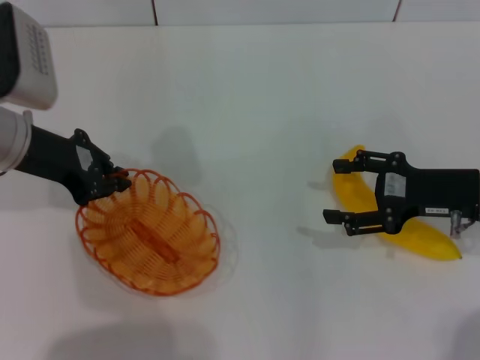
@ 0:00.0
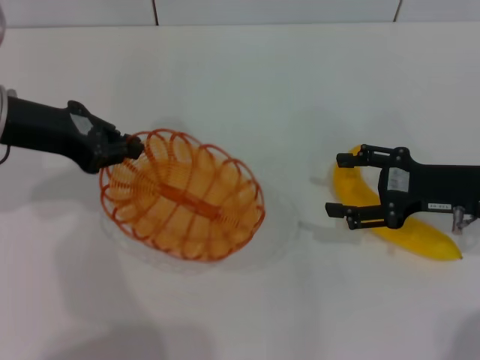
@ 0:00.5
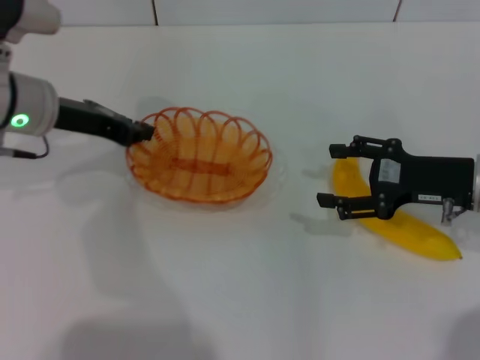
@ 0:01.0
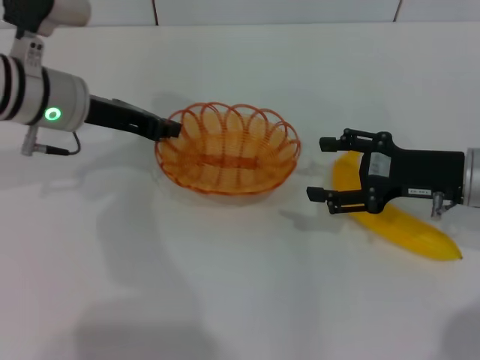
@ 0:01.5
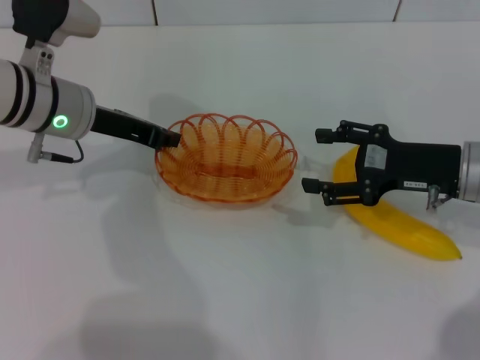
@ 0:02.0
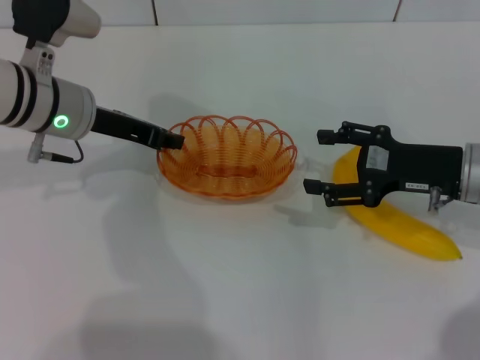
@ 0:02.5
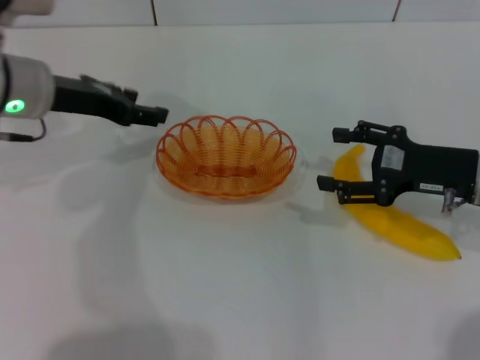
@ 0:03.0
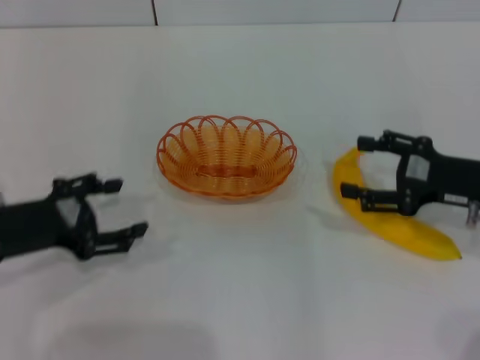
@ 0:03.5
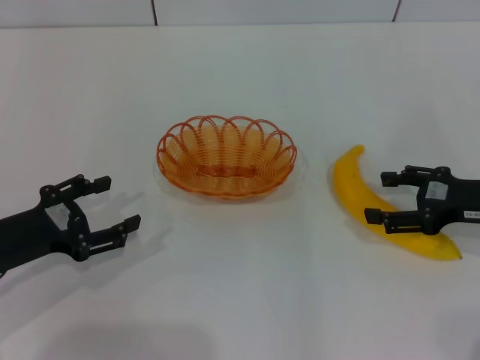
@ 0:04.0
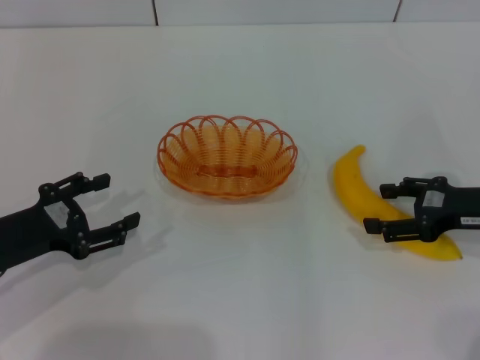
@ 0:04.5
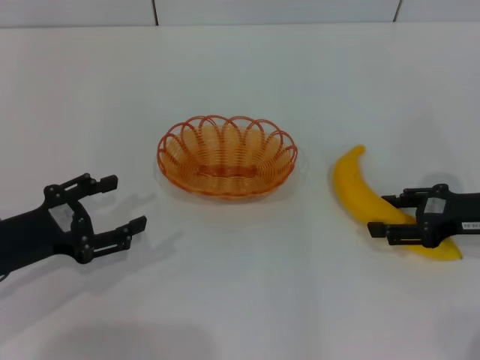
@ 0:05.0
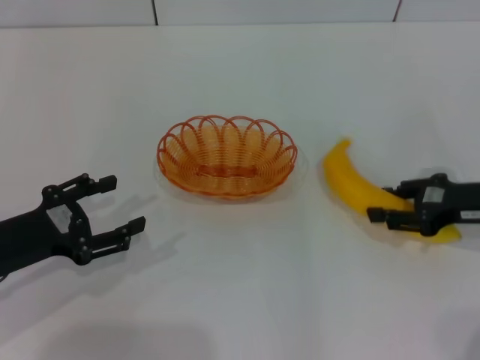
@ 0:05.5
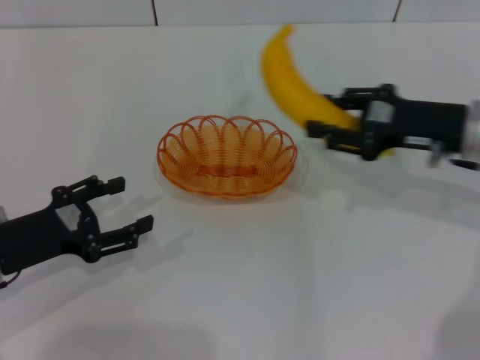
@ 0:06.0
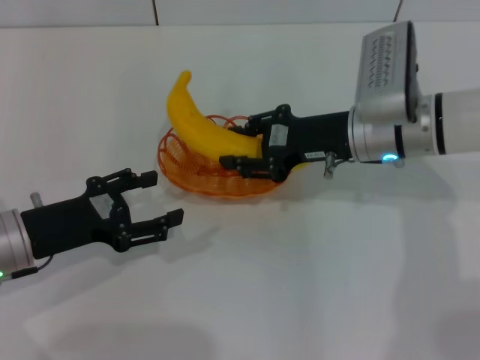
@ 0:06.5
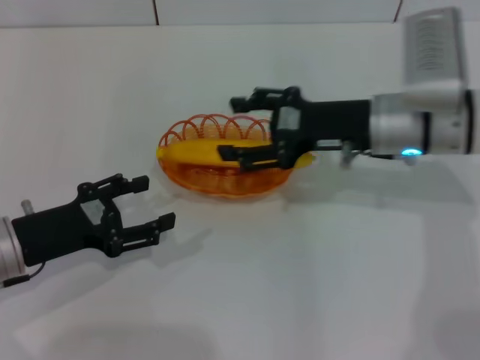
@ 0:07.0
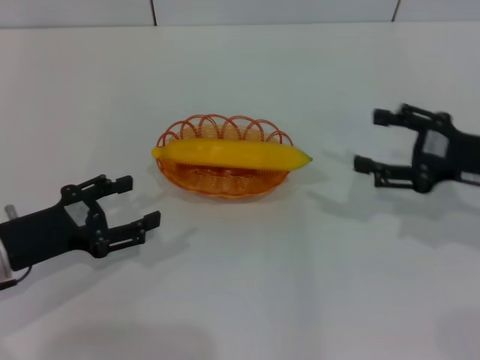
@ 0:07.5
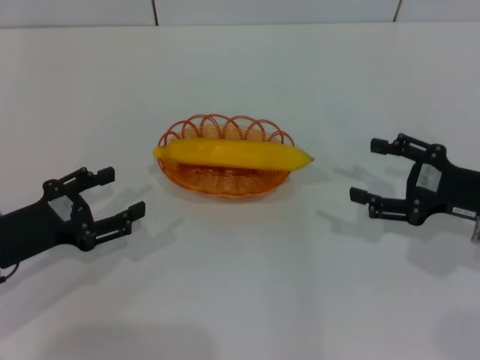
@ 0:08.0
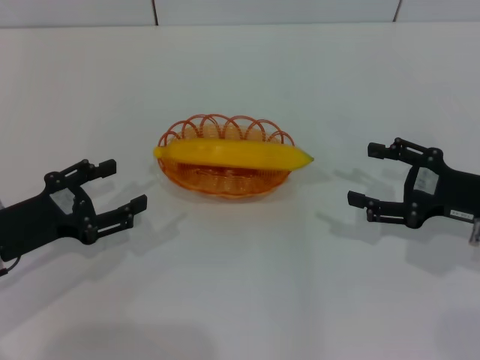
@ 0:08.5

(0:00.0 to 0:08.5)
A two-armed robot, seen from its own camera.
Step, 0:00.5 - 0:02.5: Place the basket in the center of view with the left gripper.
Step, 0:03.0 - 0:05.5: Pick up the banana with the right gripper.
Step, 0:06.0 - 0:07.0: Place the banana into the basket with the right gripper.
0:00.0 - 0:02.0: The left gripper shifts by approximately 5 cm.
0:02.0 - 0:04.0: The left gripper travels backward, to the left and downward by approximately 20 cm, and opens. The right gripper goes some 5 cm to the right.
0:04.0 - 0:06.5: The right gripper moves to the left and forward, about 20 cm, and closes up.
0:06.5 - 0:08.5: The right gripper travels to the right and backward by some 15 cm, and opens its fingers.

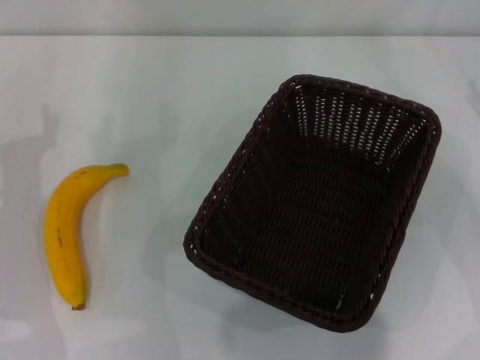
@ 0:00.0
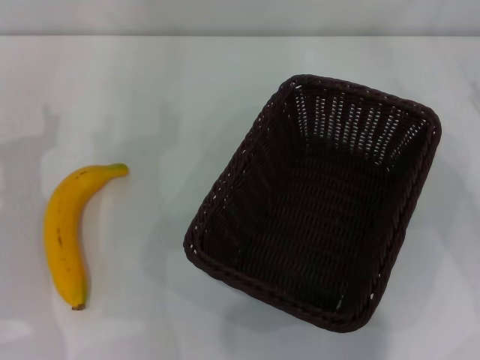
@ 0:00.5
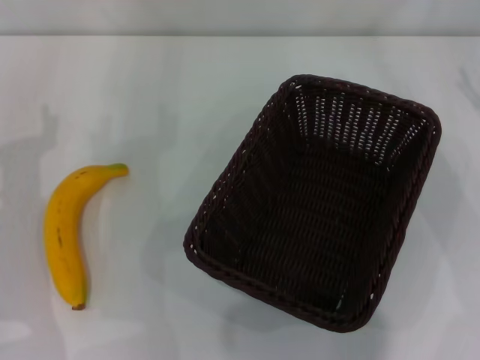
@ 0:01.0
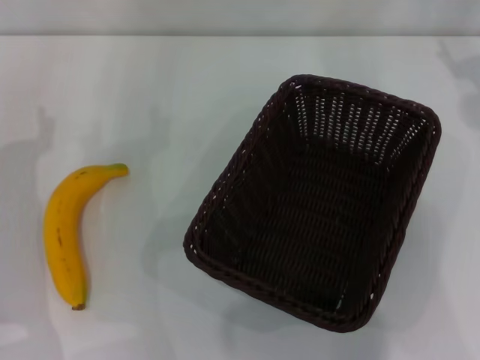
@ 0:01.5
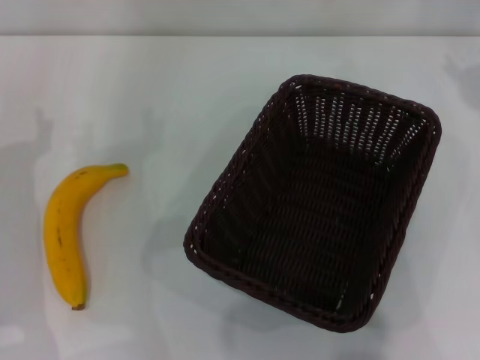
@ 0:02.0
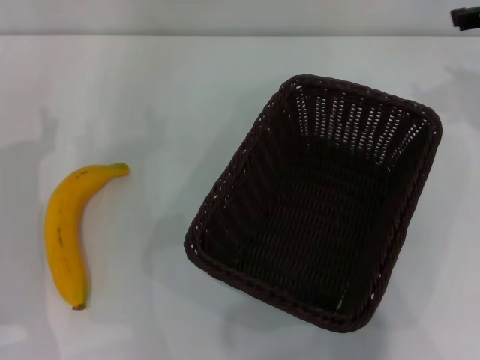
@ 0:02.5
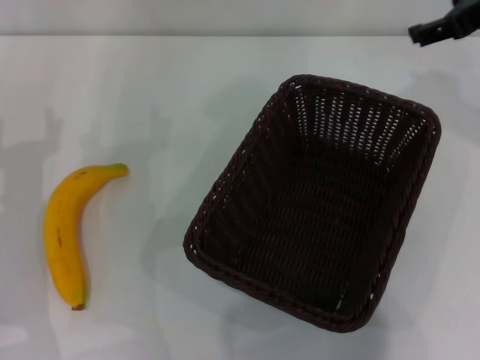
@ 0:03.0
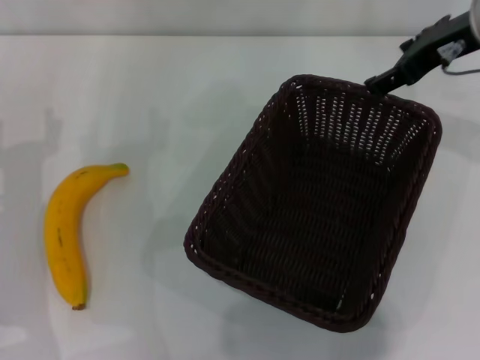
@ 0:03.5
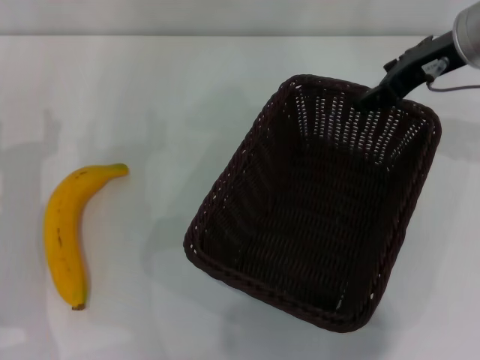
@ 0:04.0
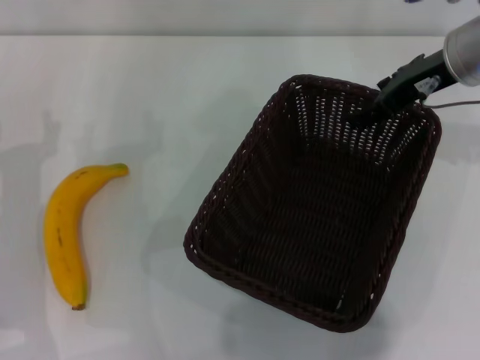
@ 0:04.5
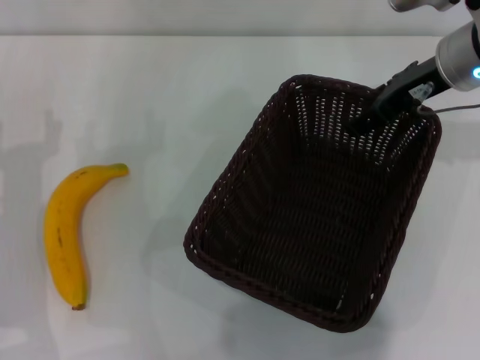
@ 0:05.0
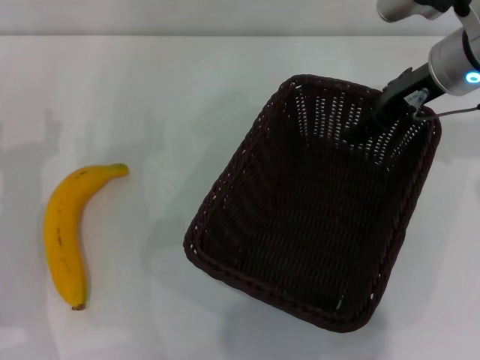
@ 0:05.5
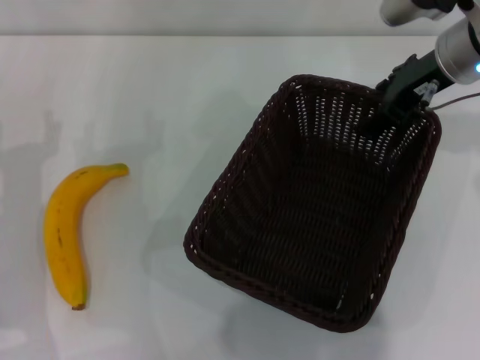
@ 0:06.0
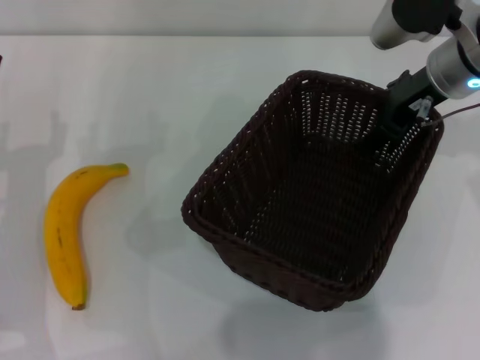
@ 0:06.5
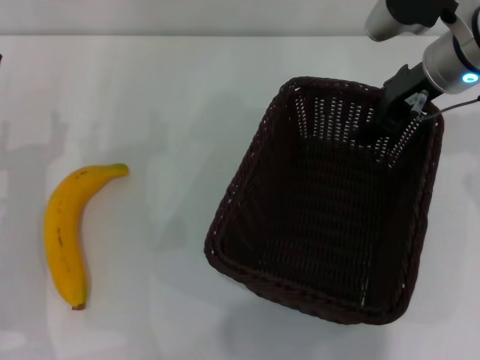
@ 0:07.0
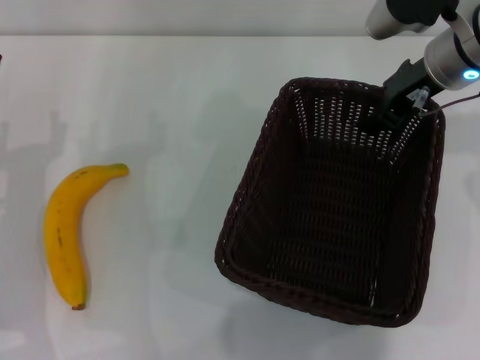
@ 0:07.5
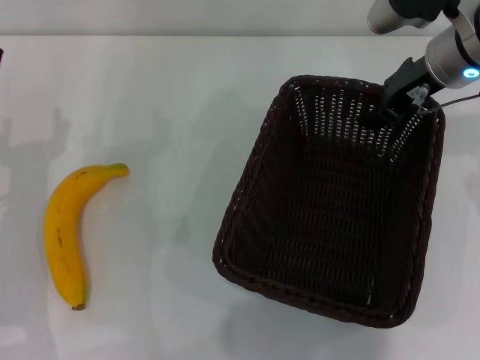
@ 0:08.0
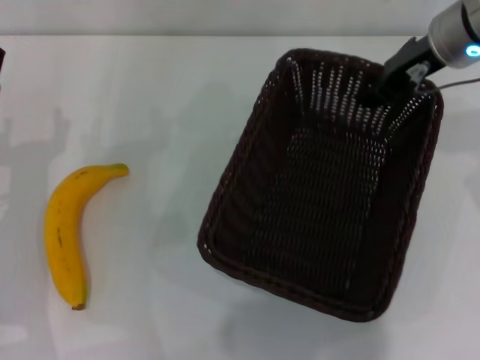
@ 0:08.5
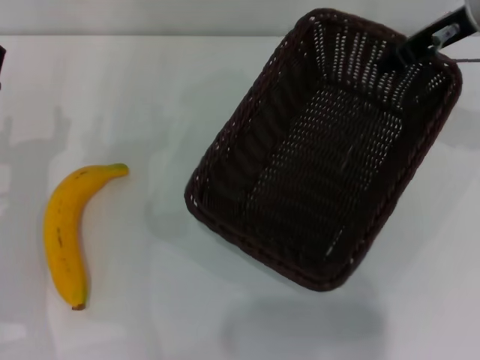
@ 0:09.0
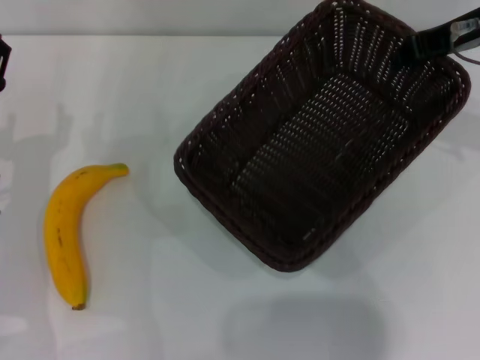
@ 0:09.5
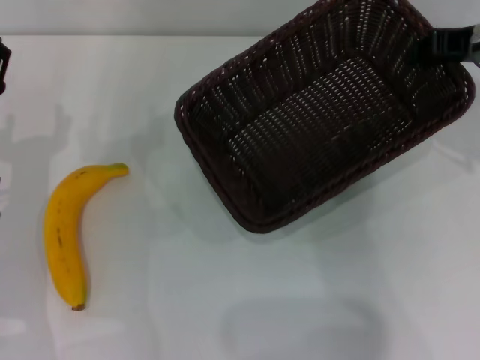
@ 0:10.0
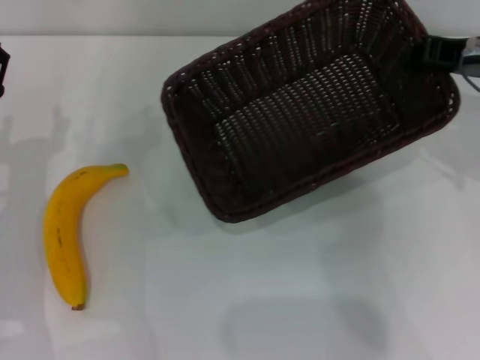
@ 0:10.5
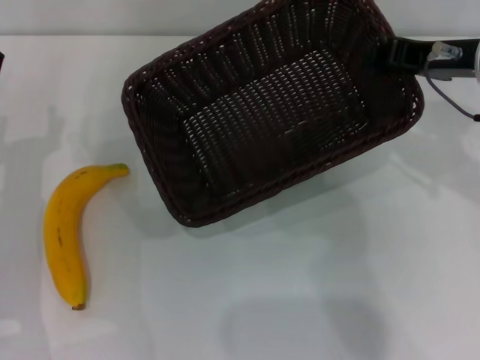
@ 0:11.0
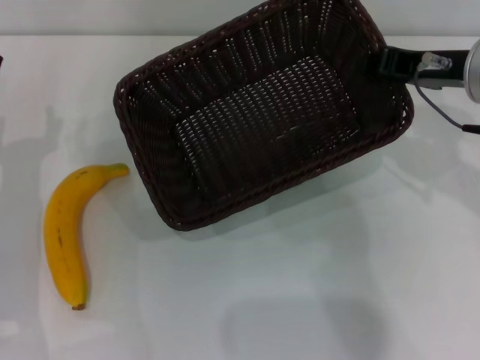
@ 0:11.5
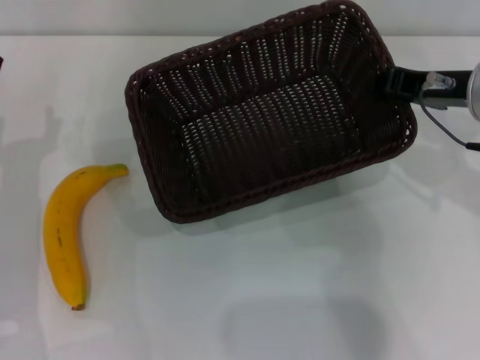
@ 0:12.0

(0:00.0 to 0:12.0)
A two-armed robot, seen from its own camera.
Step, 0:00.0 - 0:08.0: Pick up the dark basket with the right gripper.
0:02.0 - 0:04.0: The right gripper shifts about 10 cm to the left.
0:04.0 - 0:06.0: The grippers make only small movements.
0:06.0 - 0:08.0: The right gripper closes up.
0:08.0 - 0:10.0: The right gripper shifts roughly 5 cm to the right.
0:10.0 - 0:12.0: The right gripper ends up roughly 5 cm from where it was.

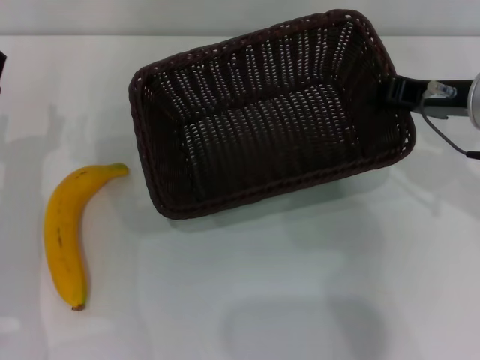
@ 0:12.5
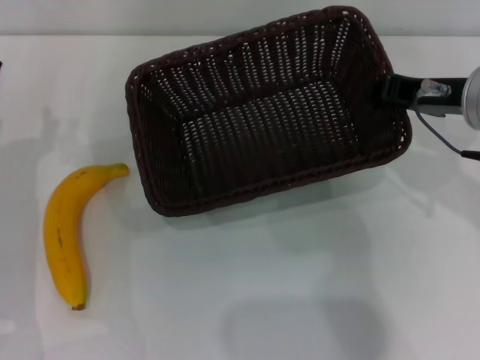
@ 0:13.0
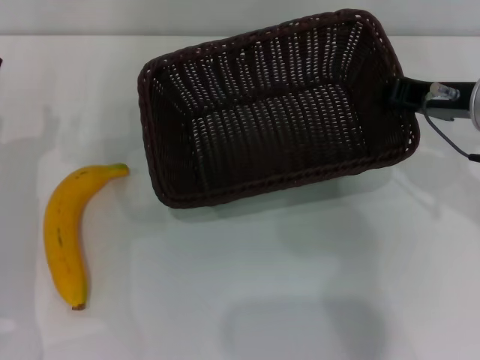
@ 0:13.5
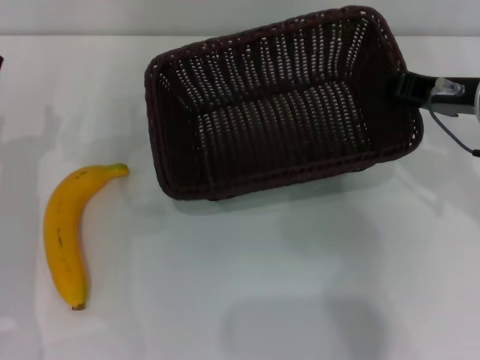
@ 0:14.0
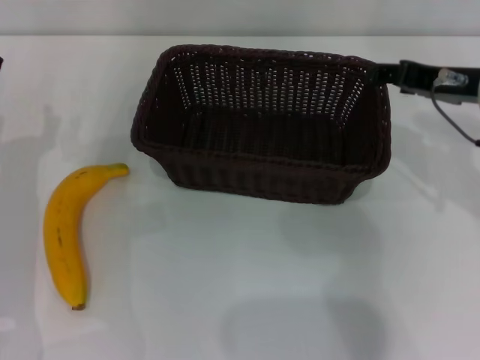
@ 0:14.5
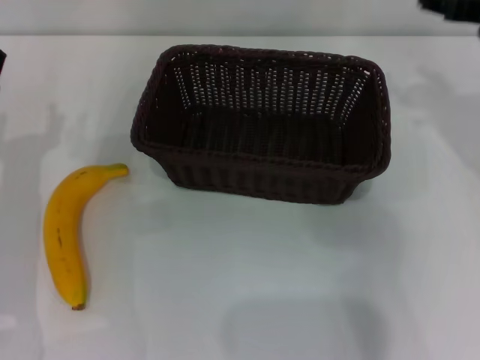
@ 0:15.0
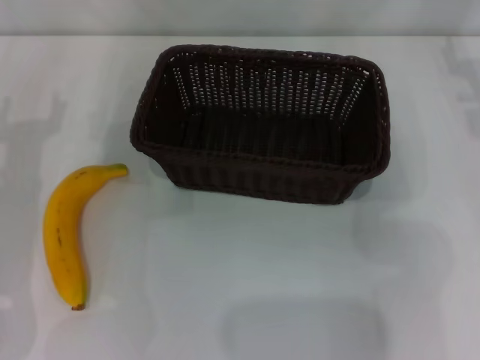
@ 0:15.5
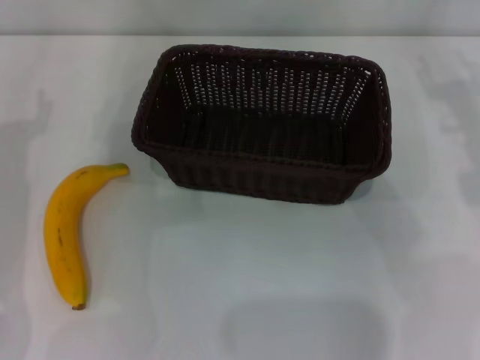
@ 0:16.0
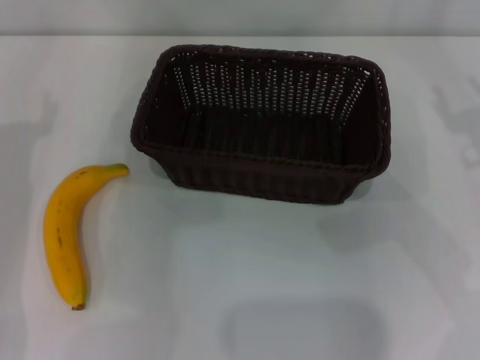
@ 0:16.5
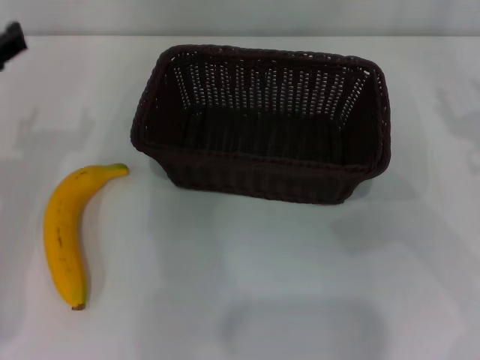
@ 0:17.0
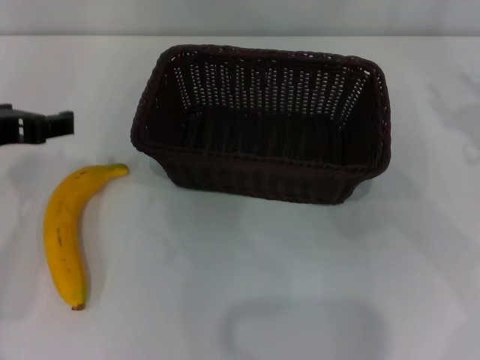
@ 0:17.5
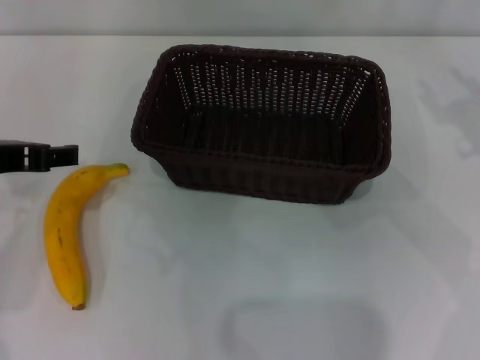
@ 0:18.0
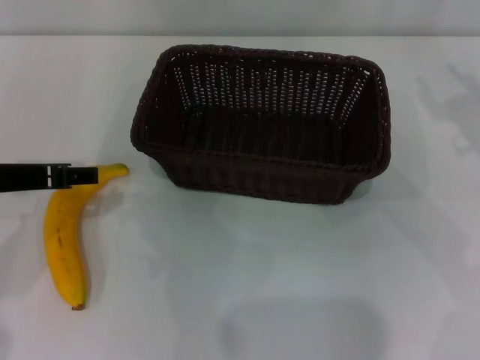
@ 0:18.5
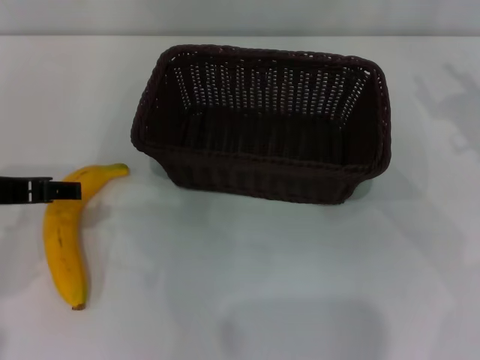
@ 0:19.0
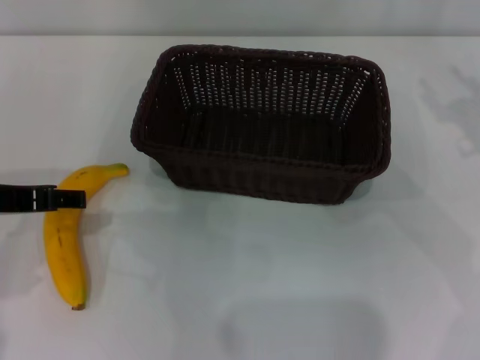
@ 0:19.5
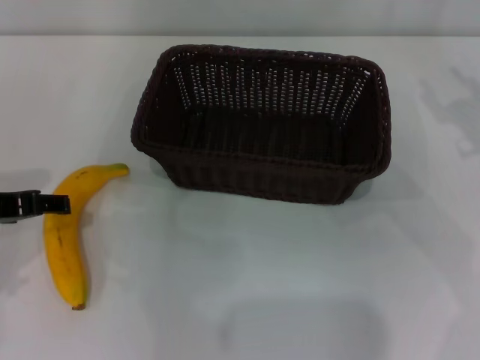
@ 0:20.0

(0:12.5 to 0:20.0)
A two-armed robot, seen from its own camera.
Step, 0:12.5 - 0:14.5: Place the dark basket in the center of view with the right gripper.
0:12.5 - 0:14.5: The right gripper opens its fingers.
0:14.5 - 0:16.5: The right gripper shifts about 10 cm to the right.
0:16.5 - 0:18.0: The left gripper moves upward, approximately 5 cm.
0:18.0 - 0:20.0: The grippers stay close to where they were, moving slightly.
